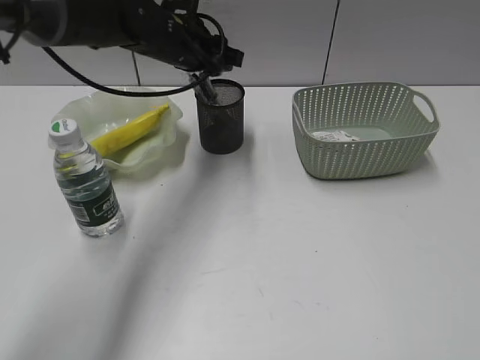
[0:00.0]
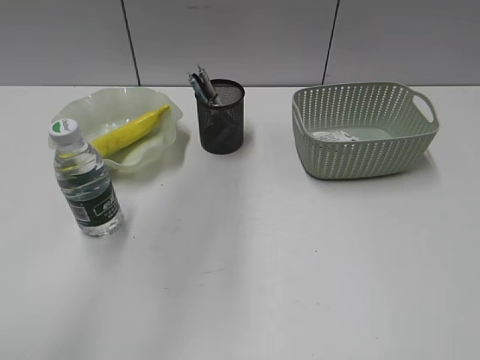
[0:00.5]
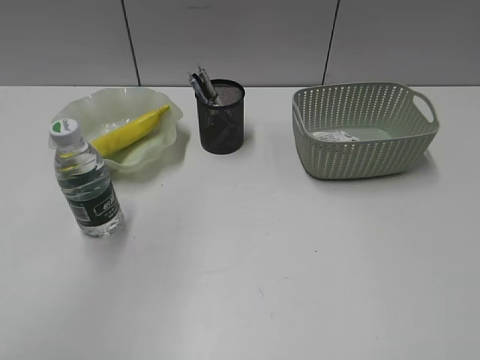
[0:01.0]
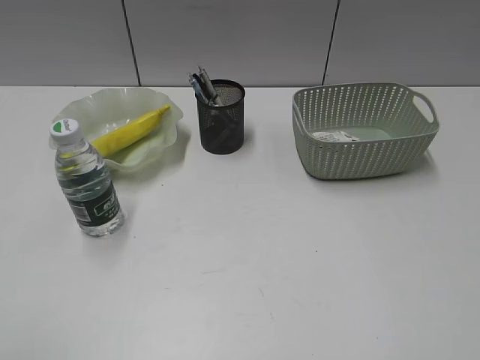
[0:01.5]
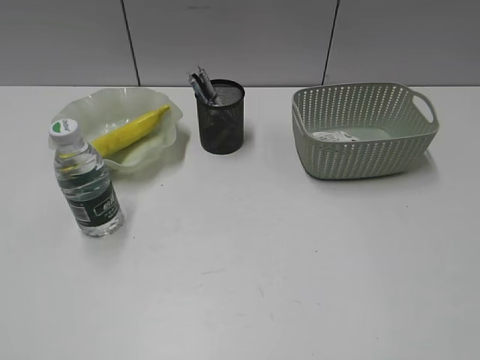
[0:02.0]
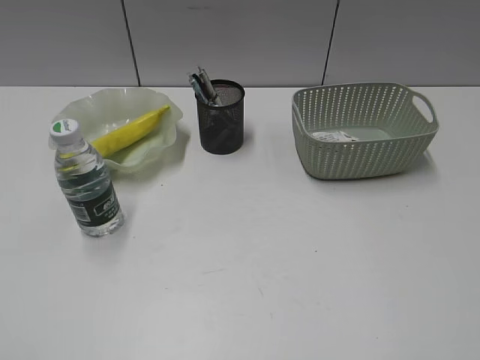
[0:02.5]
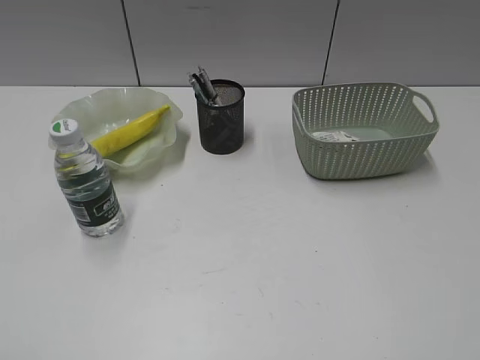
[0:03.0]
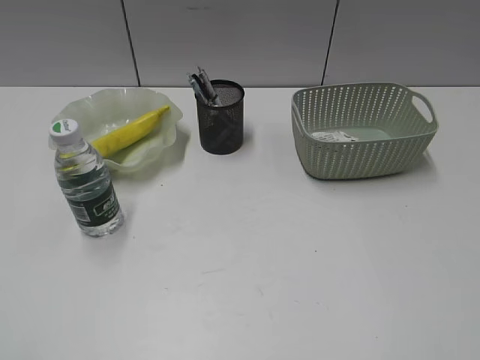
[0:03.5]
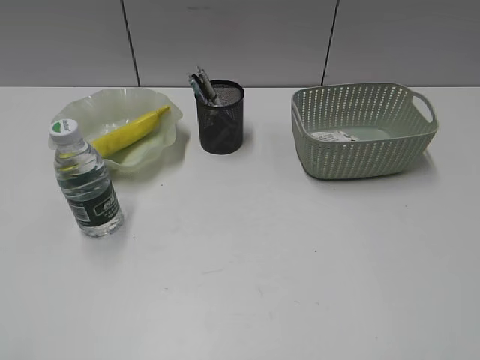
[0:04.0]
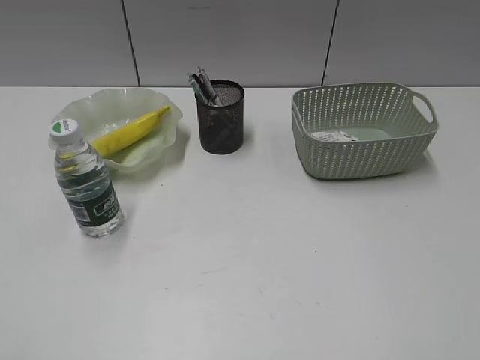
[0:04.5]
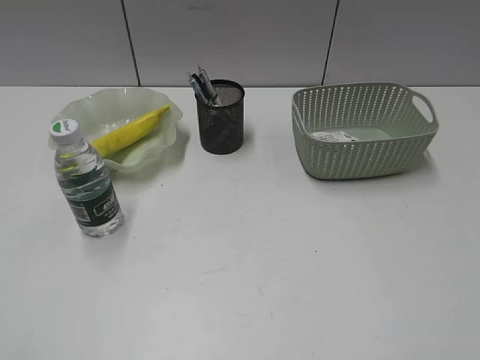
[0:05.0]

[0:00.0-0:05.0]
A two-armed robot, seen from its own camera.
0.0 to 2.5 s: The left gripper heads backward and to the left, covering approximately 50 cm.

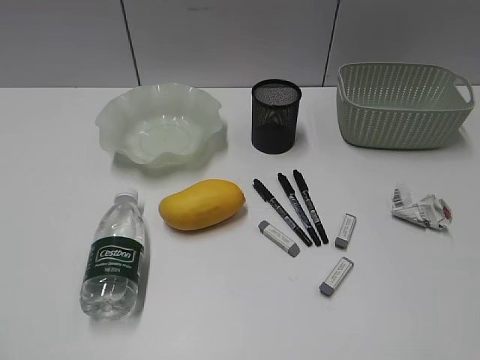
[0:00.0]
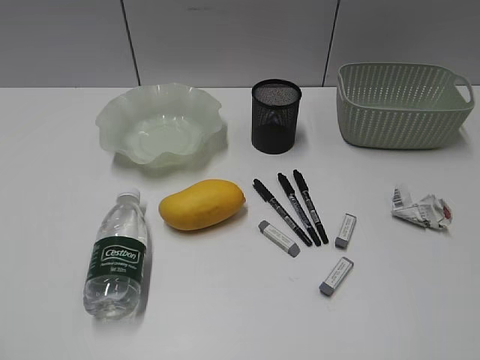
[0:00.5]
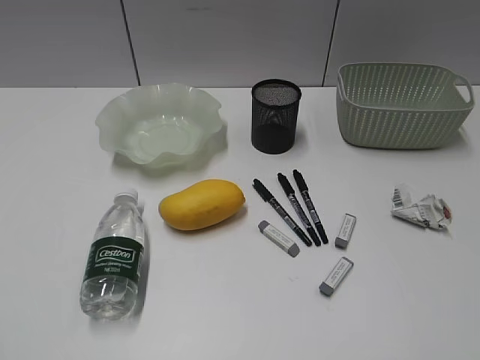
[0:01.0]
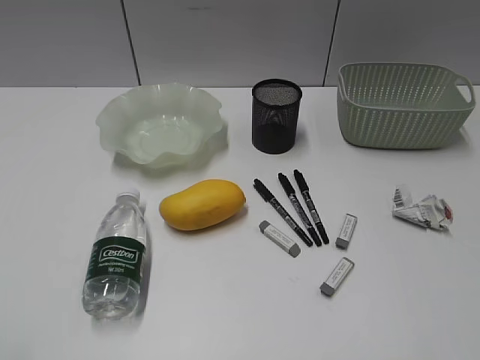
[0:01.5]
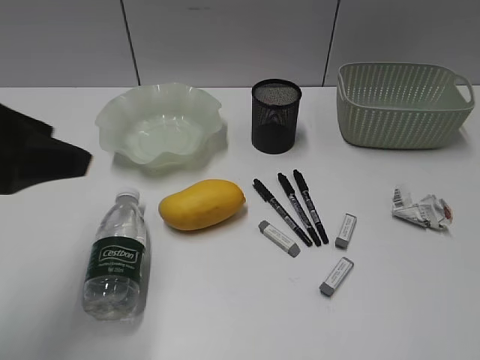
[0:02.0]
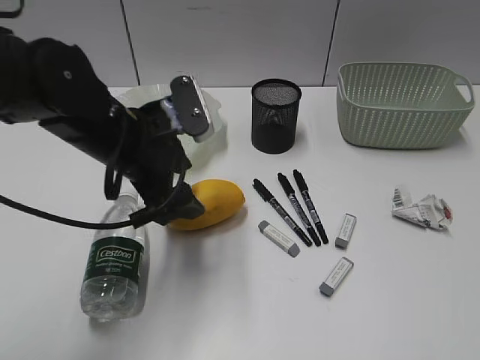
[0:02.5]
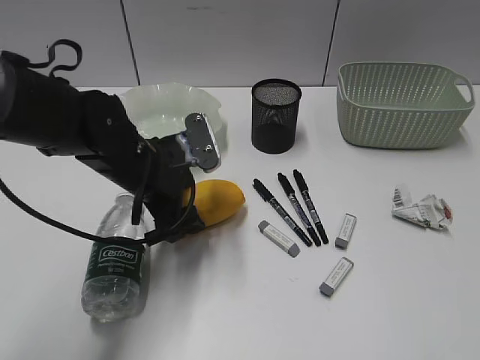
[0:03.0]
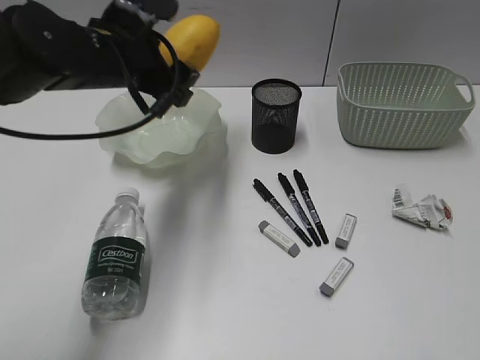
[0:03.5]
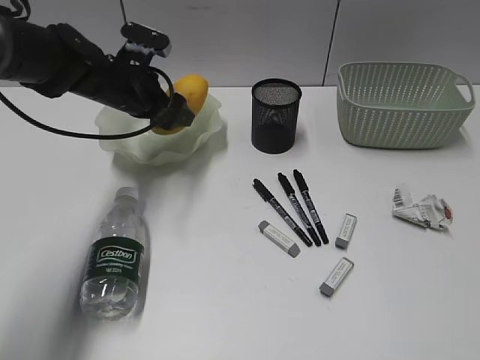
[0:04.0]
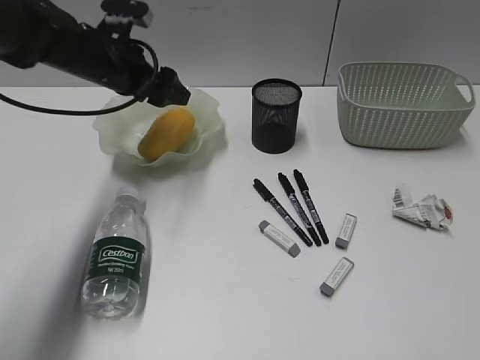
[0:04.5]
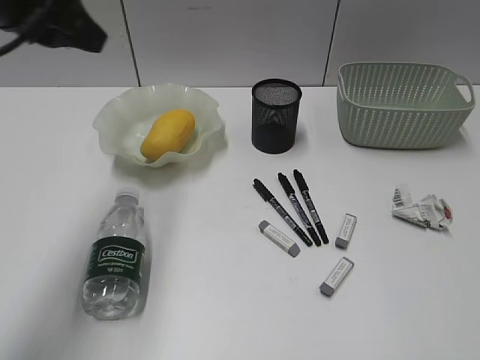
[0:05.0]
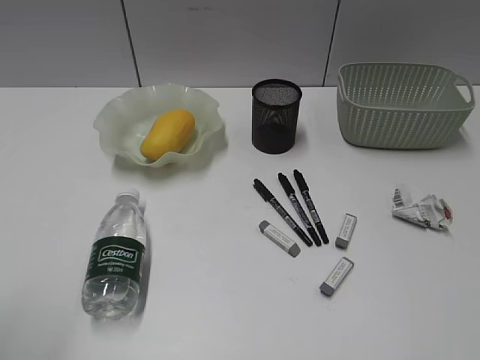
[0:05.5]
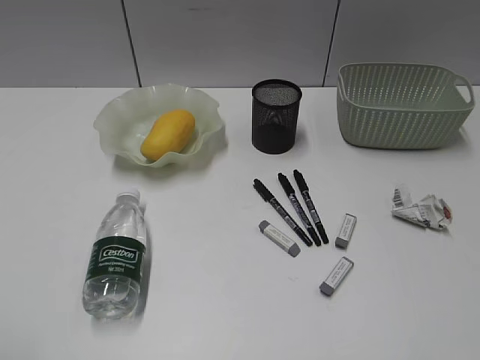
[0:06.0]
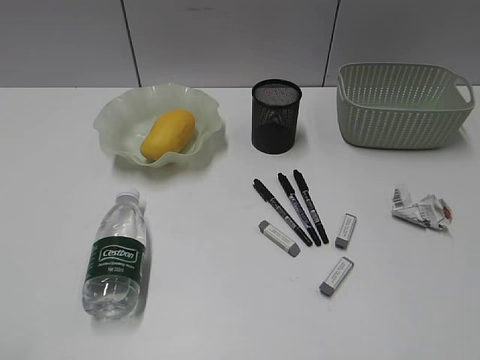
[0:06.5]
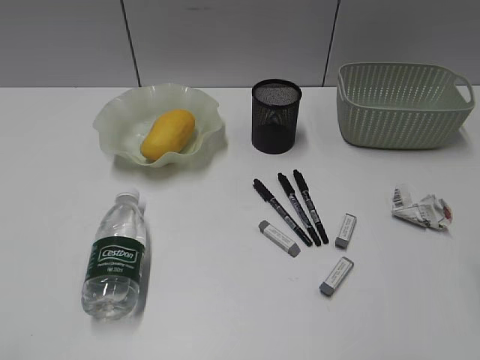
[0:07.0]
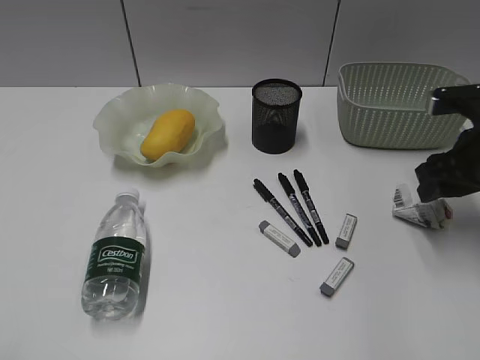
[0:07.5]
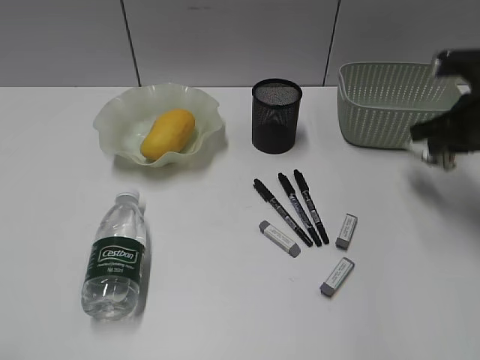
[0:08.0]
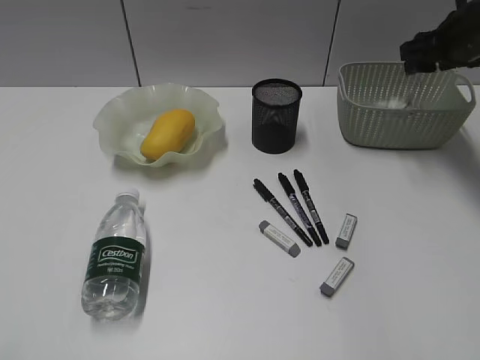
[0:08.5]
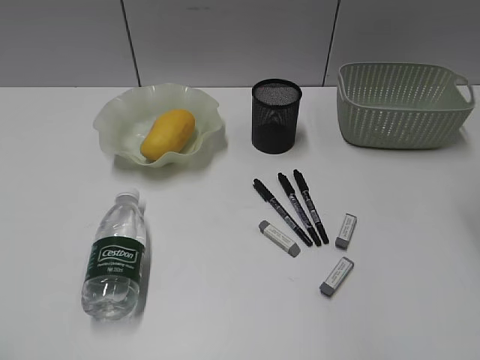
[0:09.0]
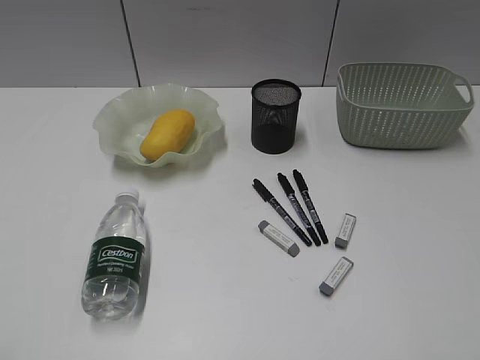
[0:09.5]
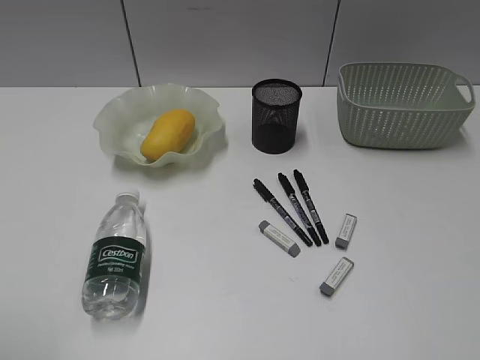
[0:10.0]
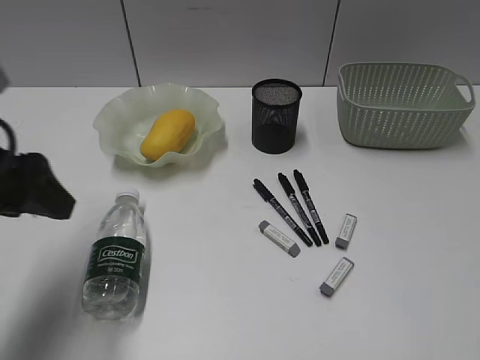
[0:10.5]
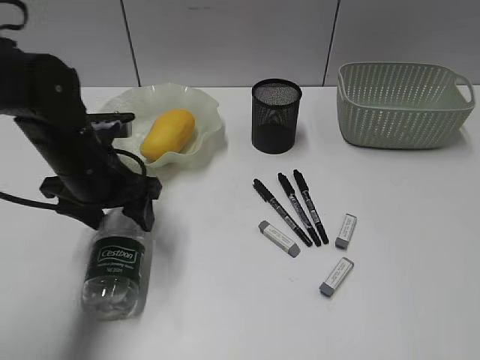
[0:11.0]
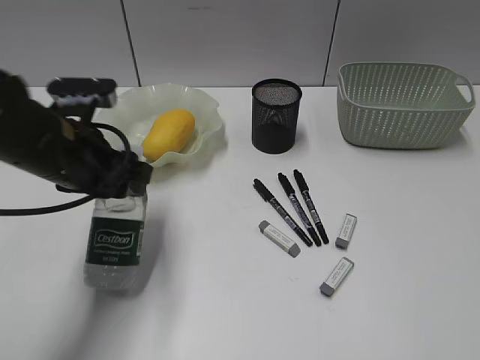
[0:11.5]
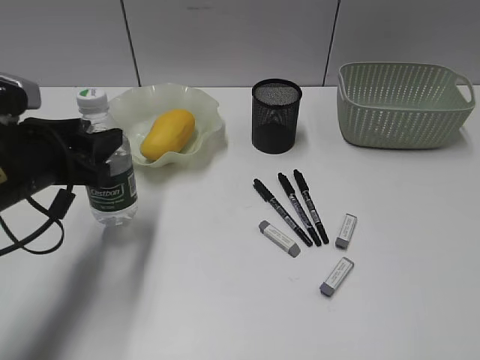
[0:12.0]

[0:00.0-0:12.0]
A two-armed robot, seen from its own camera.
Step, 1.5 to 3.0 s: Grasp the mango with left gripper.
Step, 3.5 to 4.0 s: Place the mango in the plate with left gripper.
Step, 4.5 to 7.5 s: Grasp the waste paper with right gripper.
Step, 8.0 to 8.5 s: Place the waste paper in the basket with right gripper.
Step, 9.0 to 11.0 s: Grasp the bottle with left gripper.
2.0 to 4.0 s: The left gripper travels forward and downward by some 25 cm.
4.0 to 6.0 s: The left gripper heads backward, covering about 40 cm.
6.0 to 8.0 s: The right gripper travels forward by some 35 cm, and closes.
8.0 to 10.0 s: The right gripper moves backward, roughly 35 cm, and opens its fingers.
10.0 to 12.0 s: The left gripper is displaced forward and downward by roughly 25 cm.

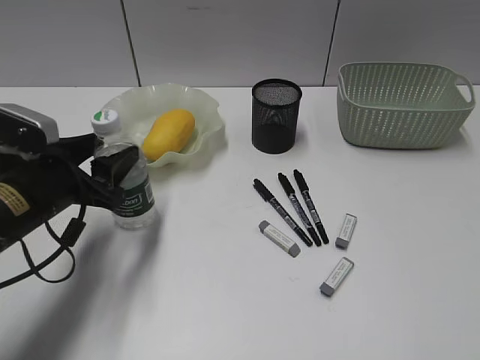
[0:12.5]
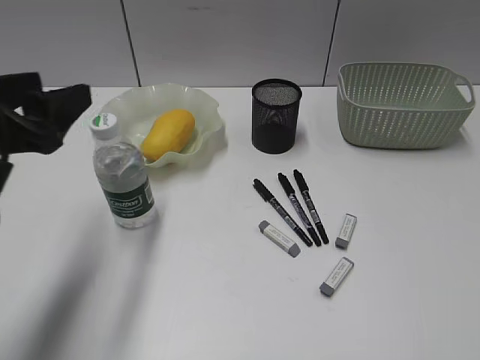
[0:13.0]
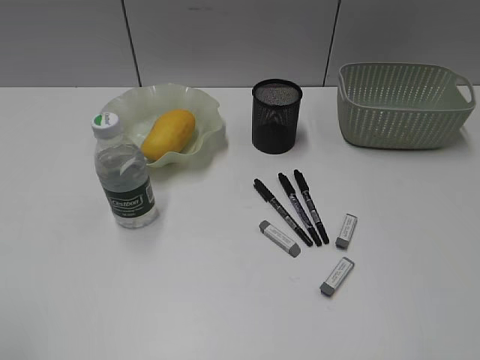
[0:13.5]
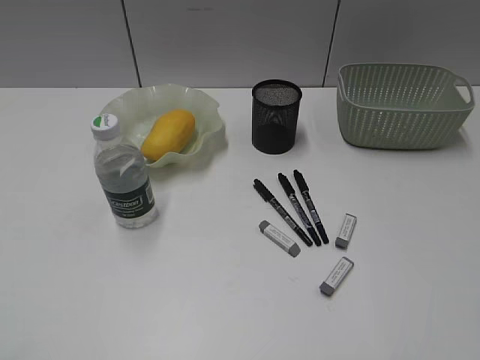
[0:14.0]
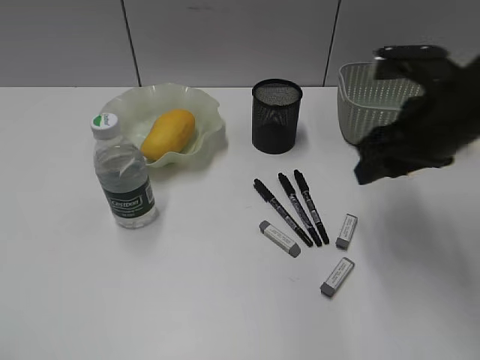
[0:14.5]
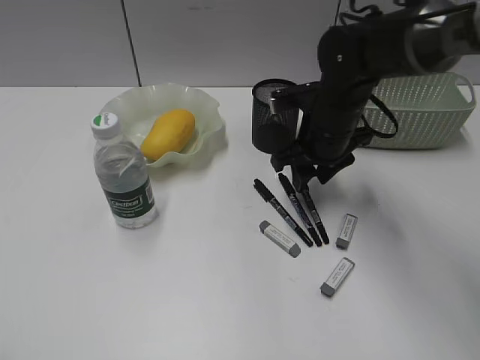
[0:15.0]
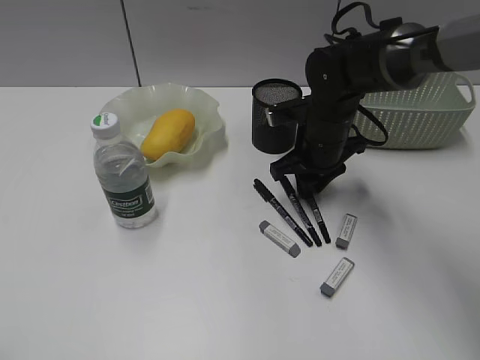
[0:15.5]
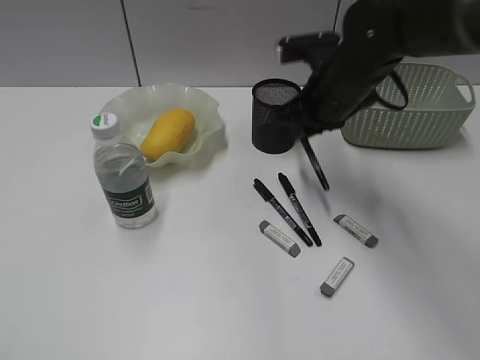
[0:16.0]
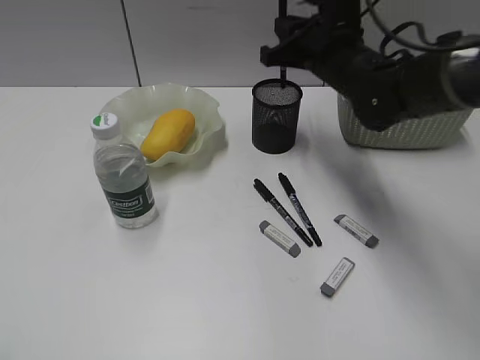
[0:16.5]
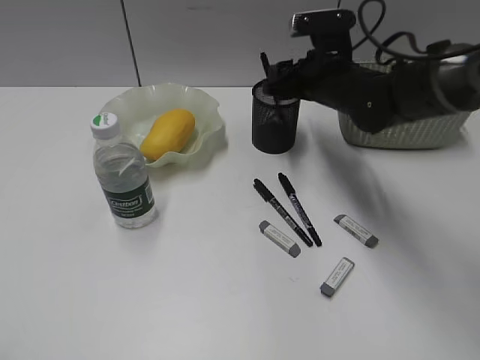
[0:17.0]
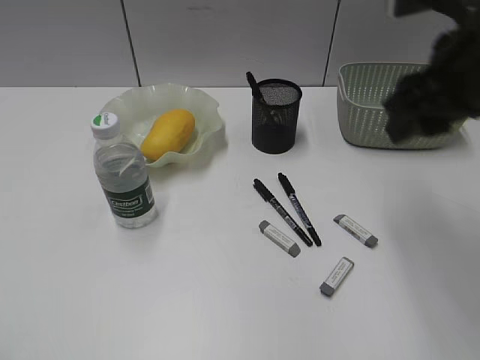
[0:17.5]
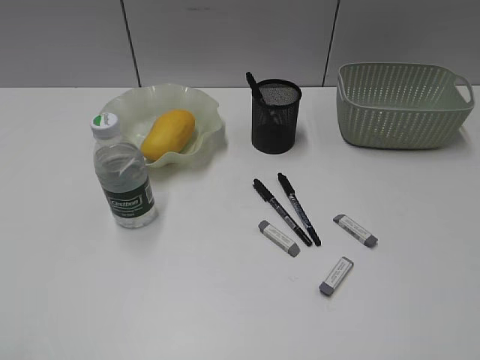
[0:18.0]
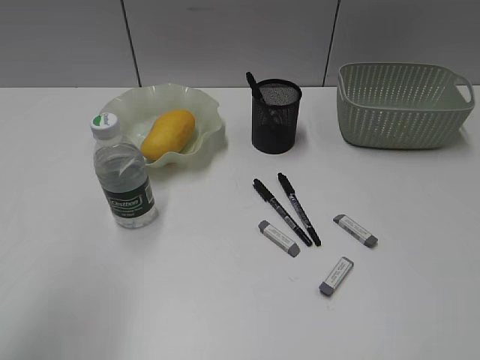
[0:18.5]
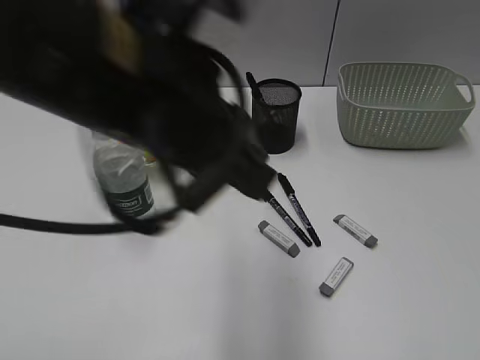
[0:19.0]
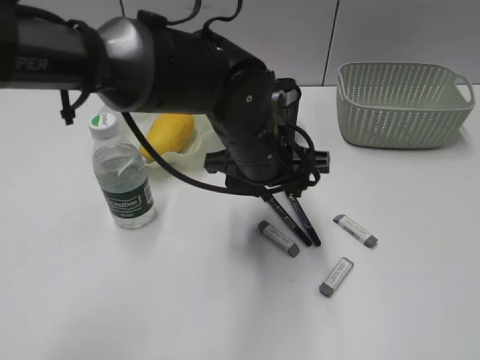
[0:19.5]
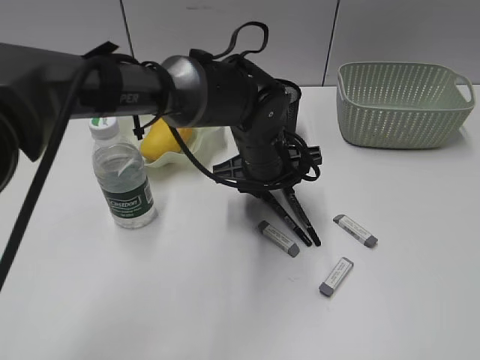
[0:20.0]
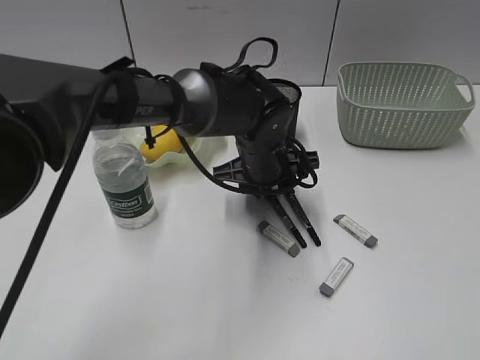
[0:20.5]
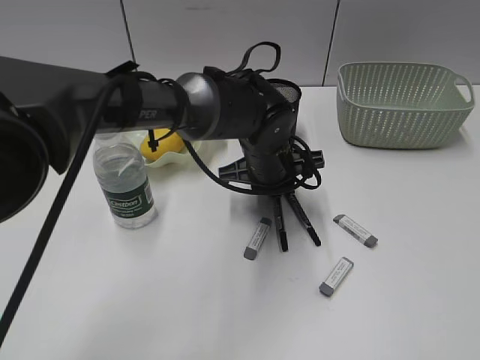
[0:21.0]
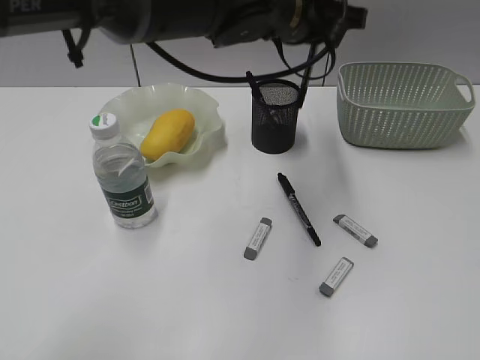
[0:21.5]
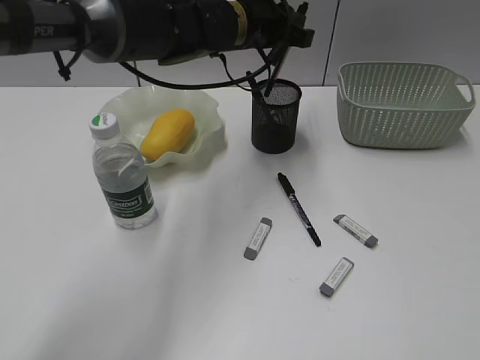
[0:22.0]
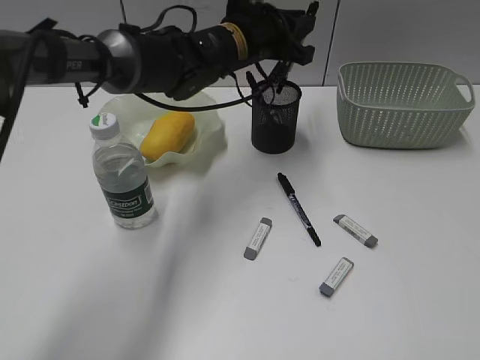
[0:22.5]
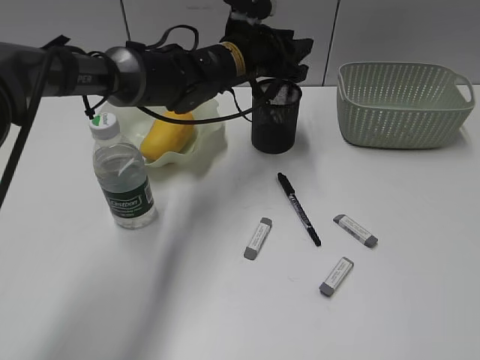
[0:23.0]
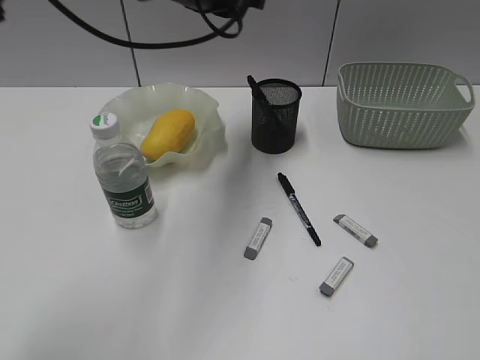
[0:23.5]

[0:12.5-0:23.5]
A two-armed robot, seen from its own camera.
Step, 13.0 to 15.5 s: Grasp the black pen with right gripper.
Step, 16.0 to 17.0 s: Place the black pen in pen holder with right gripper.
Step, 17.5 to 20.5 s: Grasp the black pen with left gripper.
Step, 21.0 to 23.0 s: Place the black pen in pen holder with left gripper.
12.5 to 14.5 s: The right gripper travels forward by roughly 30 cm. The left gripper shifts some 35 cm backward, upward and to the left.
14.5 to 16.0 s: The right gripper is displaced to the left and forward by about 10 cm, reaches approximately 10 cm downward, then returns, and closes.
16.0 to 18.0 s: The right gripper goes some 40 cm backward and to the right, and opens.
18.0 to 20.0 s: The left gripper moves to the right, forward and downward, some 50 cm, and closes, then reopens.
20.0 to 21.5 s: The left gripper travels upward by some 15 cm, and closes its fingers.
21.5 to 23.5 s: The left gripper goes some 10 cm to the left and forward, and goes downward and returns, approximately 10 cm each way.
